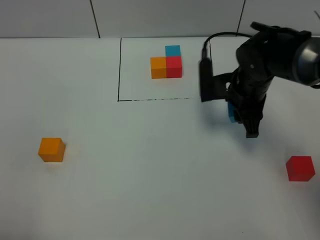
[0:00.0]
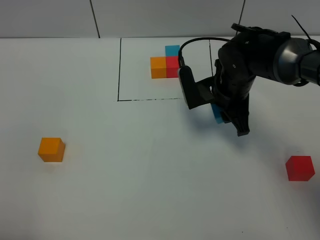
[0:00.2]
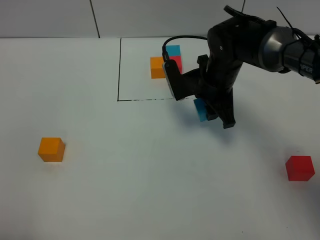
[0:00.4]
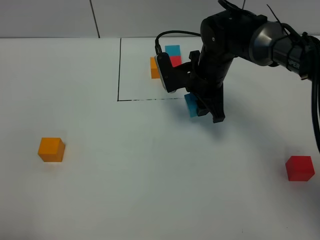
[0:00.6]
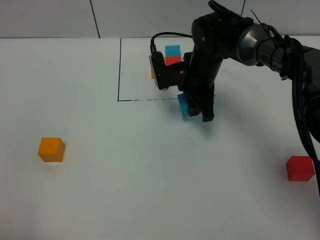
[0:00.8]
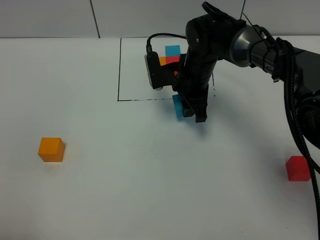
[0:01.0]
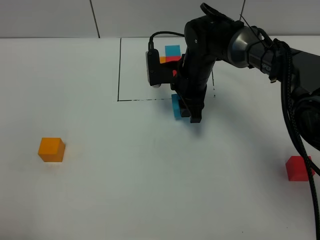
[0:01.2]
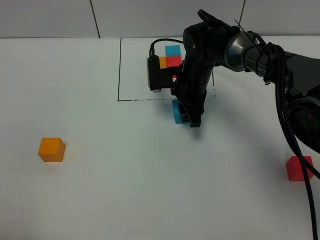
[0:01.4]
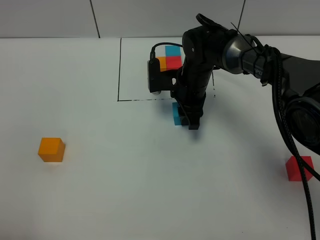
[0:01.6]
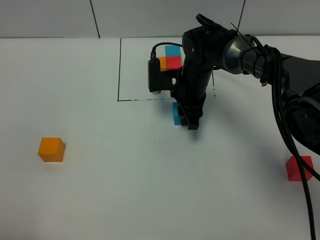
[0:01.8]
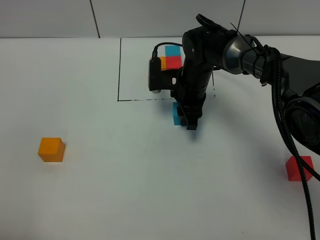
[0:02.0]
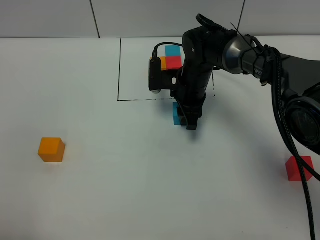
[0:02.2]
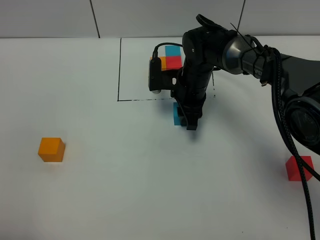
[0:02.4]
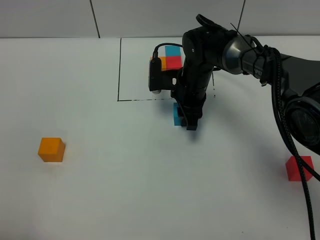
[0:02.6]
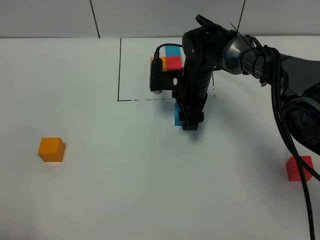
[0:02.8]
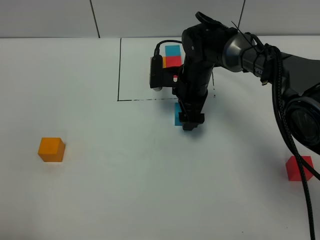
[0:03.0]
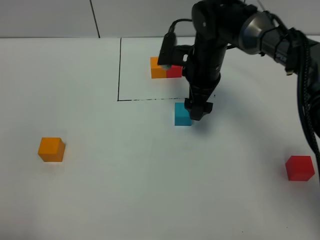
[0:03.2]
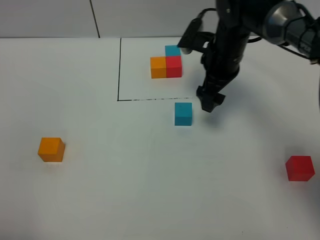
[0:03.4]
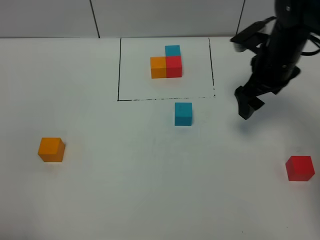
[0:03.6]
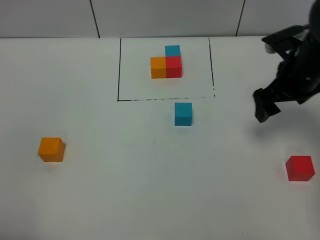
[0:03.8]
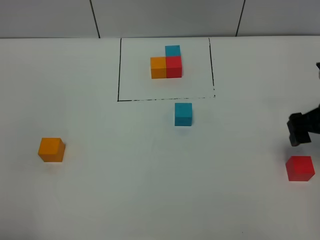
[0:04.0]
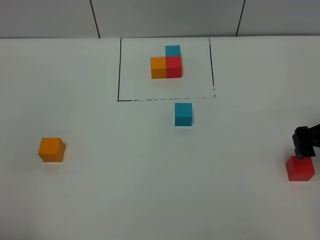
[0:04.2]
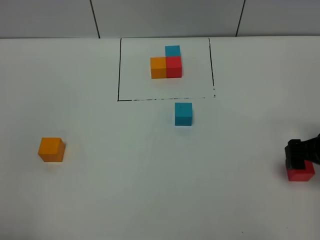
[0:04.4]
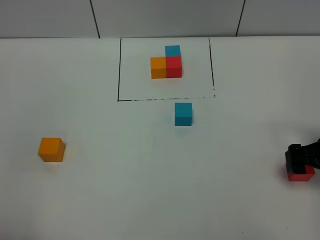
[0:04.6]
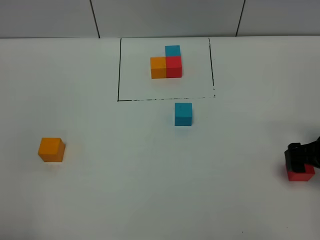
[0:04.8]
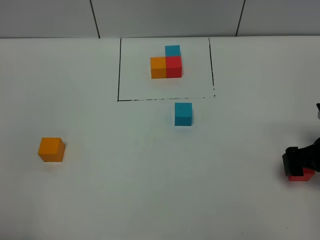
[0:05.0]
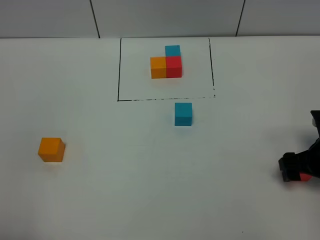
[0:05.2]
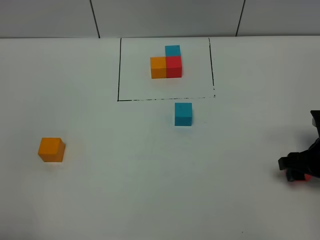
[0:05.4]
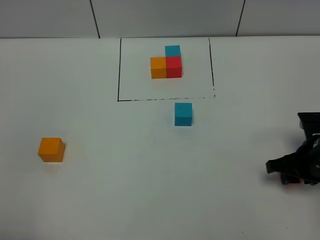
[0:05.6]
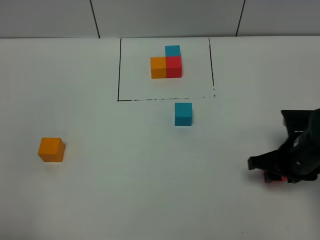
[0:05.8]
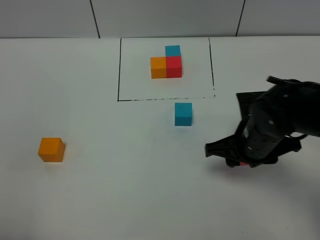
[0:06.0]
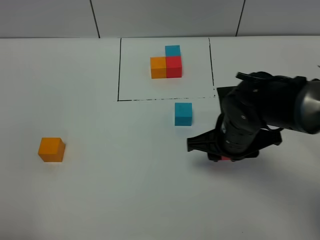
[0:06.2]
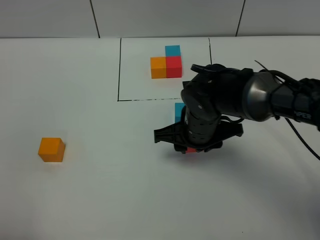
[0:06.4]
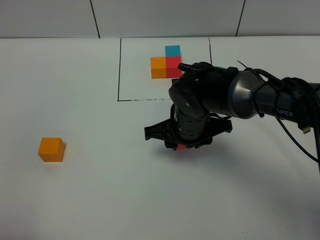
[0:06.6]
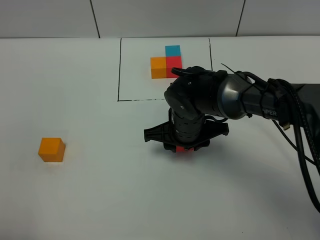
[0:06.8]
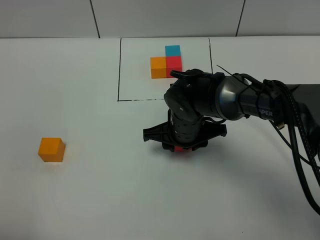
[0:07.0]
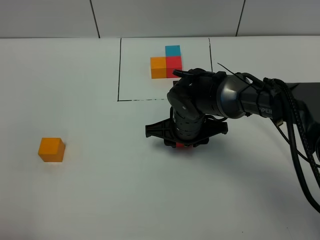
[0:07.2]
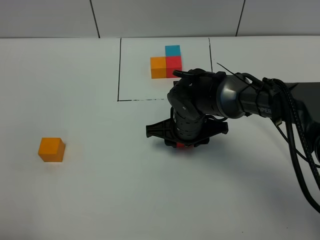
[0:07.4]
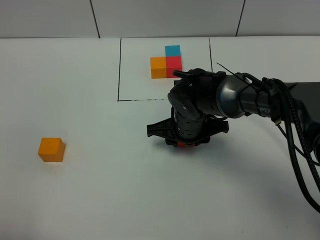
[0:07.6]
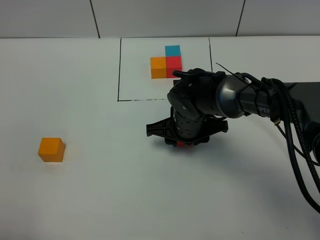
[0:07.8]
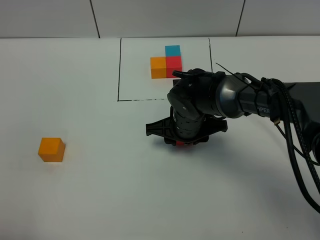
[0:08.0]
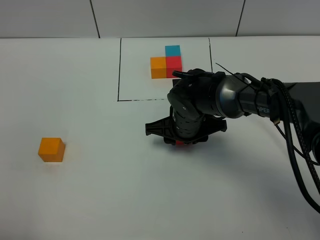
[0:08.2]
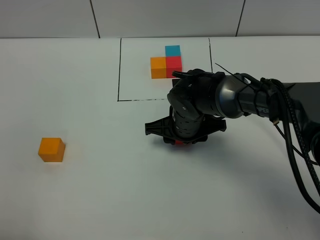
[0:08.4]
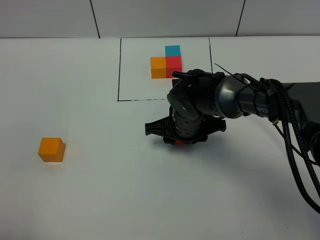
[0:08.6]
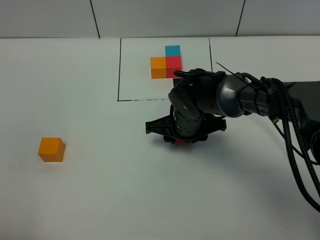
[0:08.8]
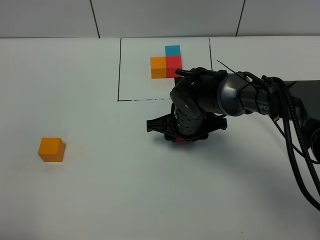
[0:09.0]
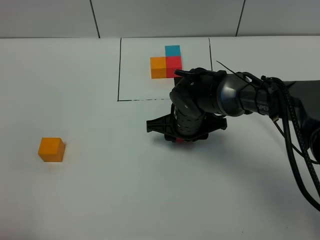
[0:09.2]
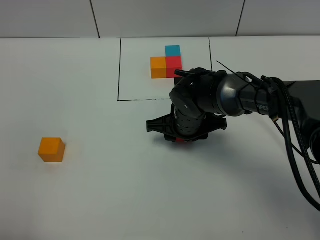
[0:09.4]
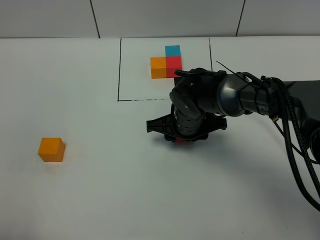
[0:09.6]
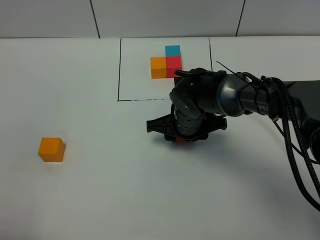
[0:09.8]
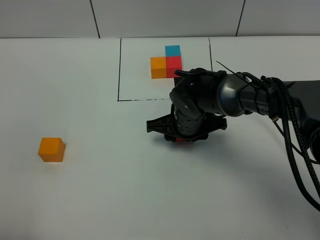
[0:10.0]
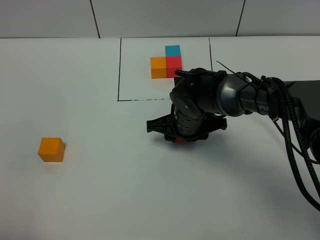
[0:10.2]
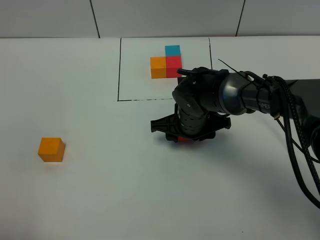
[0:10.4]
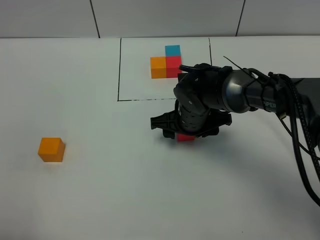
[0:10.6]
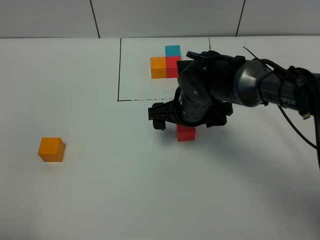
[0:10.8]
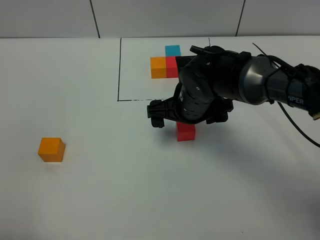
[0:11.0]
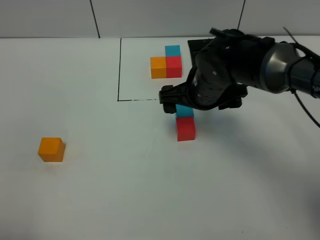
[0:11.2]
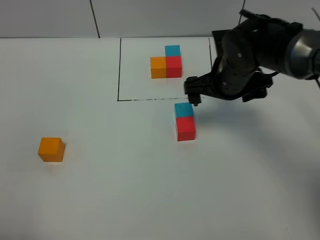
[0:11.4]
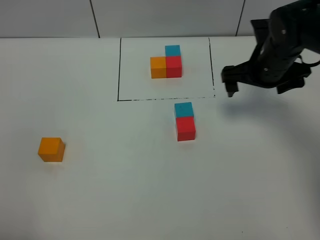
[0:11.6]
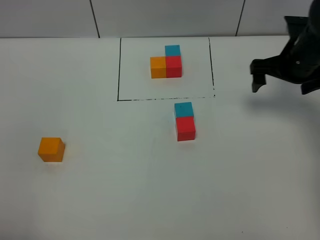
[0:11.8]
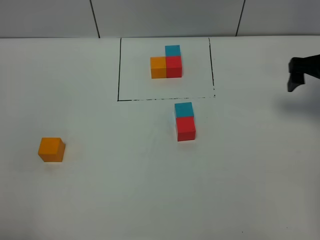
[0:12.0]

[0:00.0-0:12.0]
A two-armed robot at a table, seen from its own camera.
Task of the whole recording: According to the building block template in front, assemble the scattered blocks together.
Step, 0:00.0 to 0:02.8: Put the blue build block in the center of the table.
Step, 0:03.0 to 0:10.6: Put the red build block on the behind of the blue build block.
0:00.0 to 0:01.6: The right gripper goes roughly 10 cm to the left and forward.
0:01.6 to 0:03.0: The right gripper opens its fingers.
0:03.0 to 0:04.4: The right gripper shifts approximately 30 cm to the right and backward.
0:04.4 to 0:06.0: The right gripper moves to the left, about 15 cm, and closes up.
0:06.0 to 0:07.6: The right gripper is displaced to the left and forward by roughly 10 cm.
0:07.6 to 0:09.0: Neither gripper changes place.
0:09.0 to 0:10.4: Neither gripper changes place.
0:10.4 to 0:12.0: The right gripper is displaced to the right and upward by roughly 30 cm, and opens up.

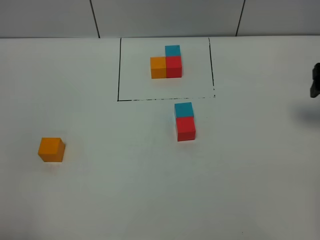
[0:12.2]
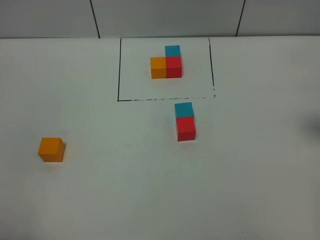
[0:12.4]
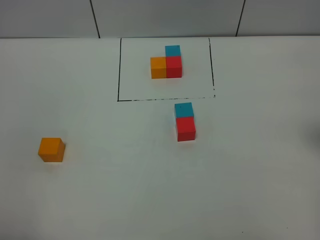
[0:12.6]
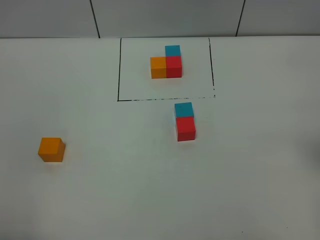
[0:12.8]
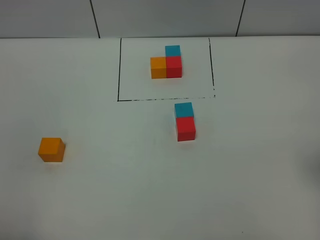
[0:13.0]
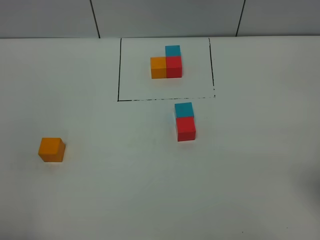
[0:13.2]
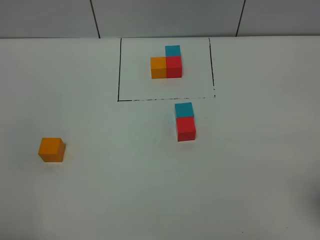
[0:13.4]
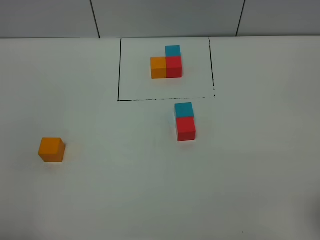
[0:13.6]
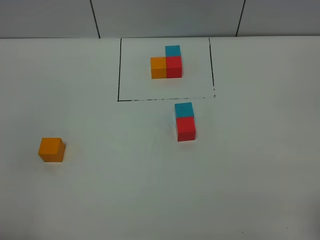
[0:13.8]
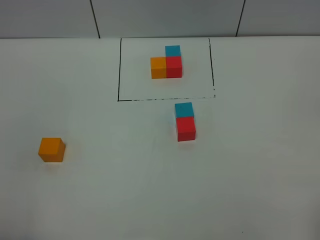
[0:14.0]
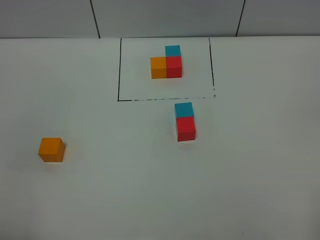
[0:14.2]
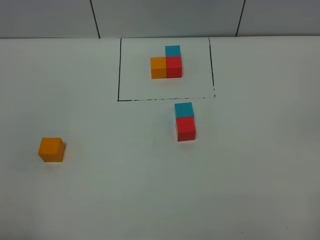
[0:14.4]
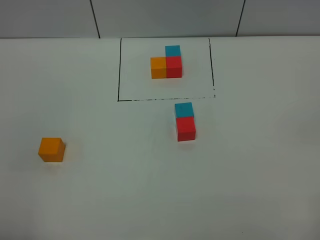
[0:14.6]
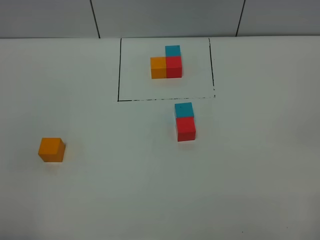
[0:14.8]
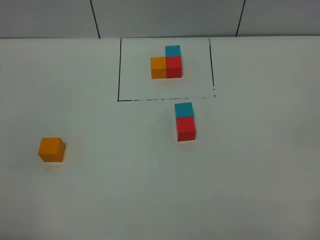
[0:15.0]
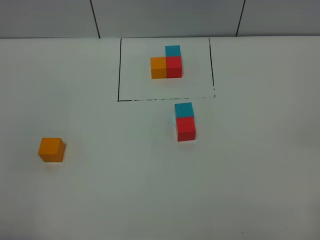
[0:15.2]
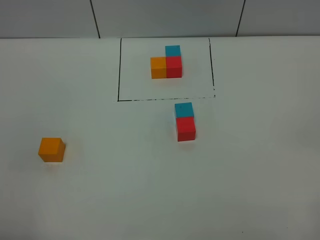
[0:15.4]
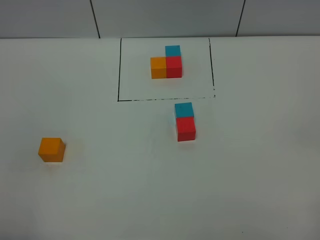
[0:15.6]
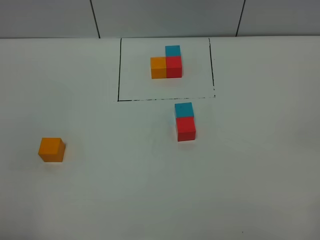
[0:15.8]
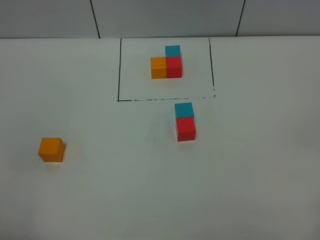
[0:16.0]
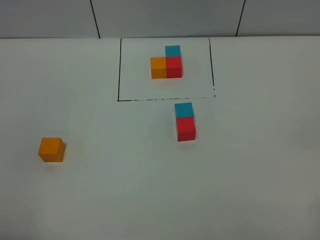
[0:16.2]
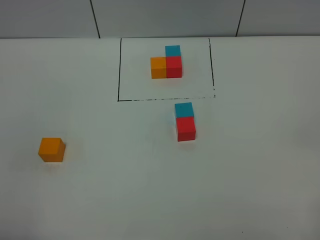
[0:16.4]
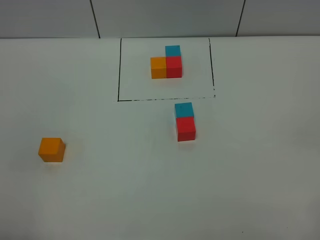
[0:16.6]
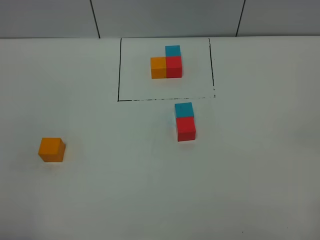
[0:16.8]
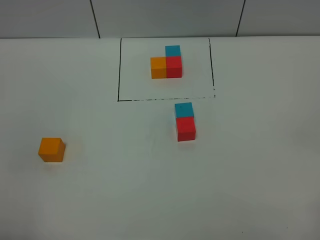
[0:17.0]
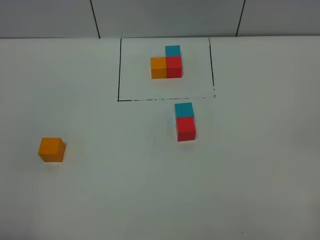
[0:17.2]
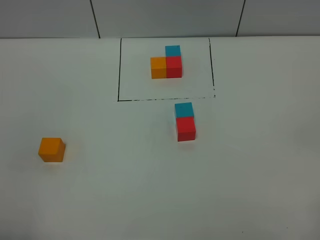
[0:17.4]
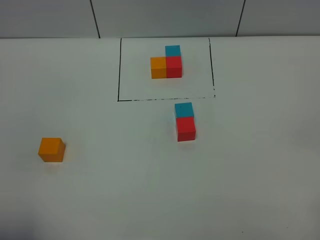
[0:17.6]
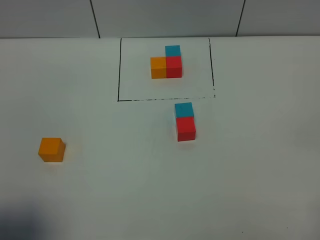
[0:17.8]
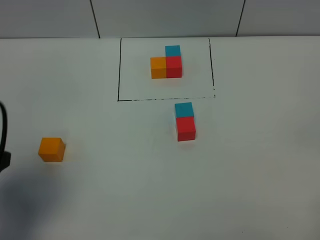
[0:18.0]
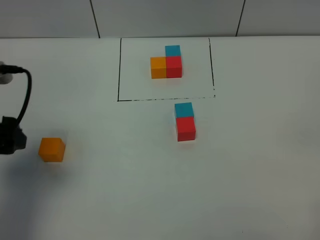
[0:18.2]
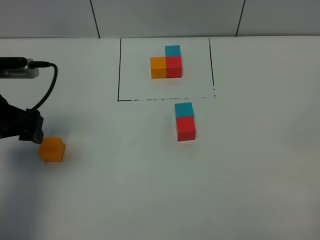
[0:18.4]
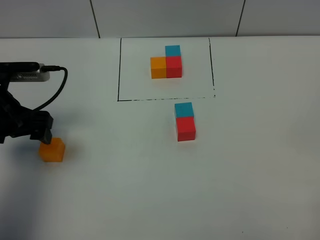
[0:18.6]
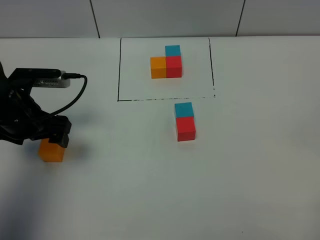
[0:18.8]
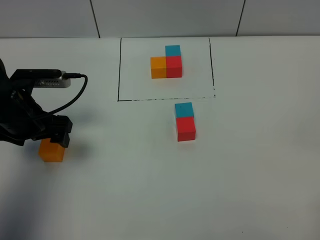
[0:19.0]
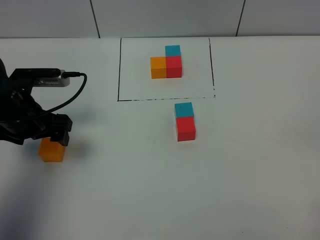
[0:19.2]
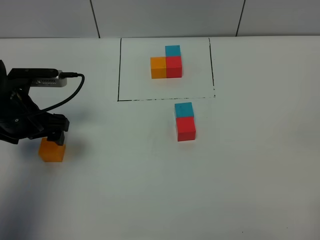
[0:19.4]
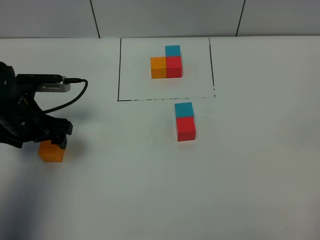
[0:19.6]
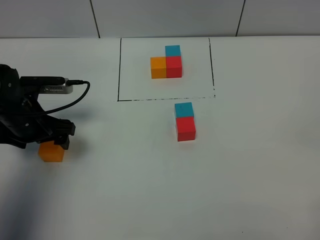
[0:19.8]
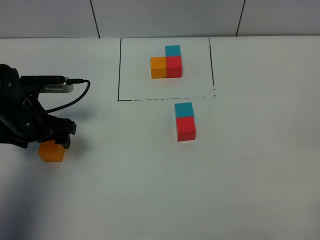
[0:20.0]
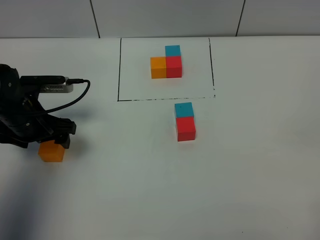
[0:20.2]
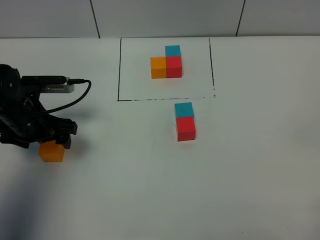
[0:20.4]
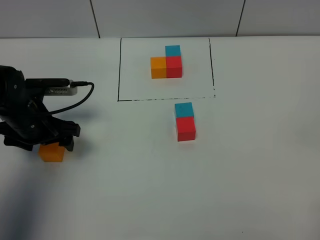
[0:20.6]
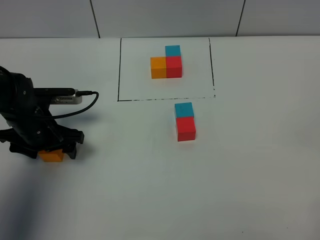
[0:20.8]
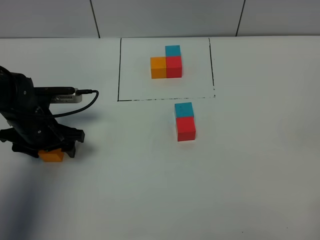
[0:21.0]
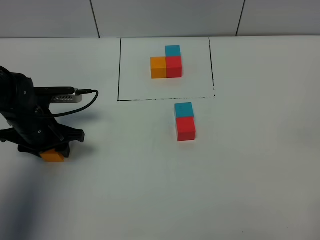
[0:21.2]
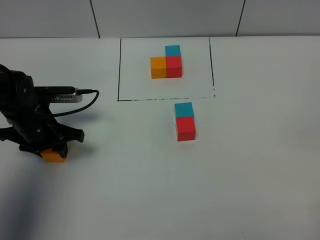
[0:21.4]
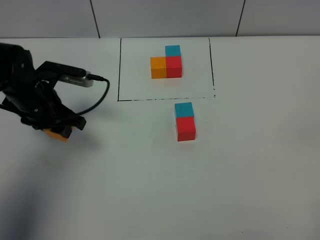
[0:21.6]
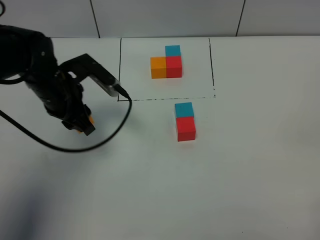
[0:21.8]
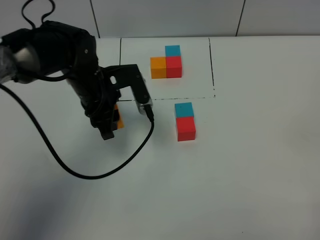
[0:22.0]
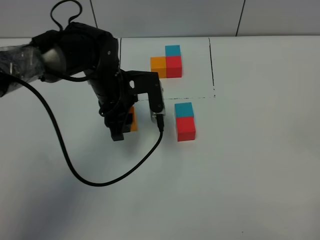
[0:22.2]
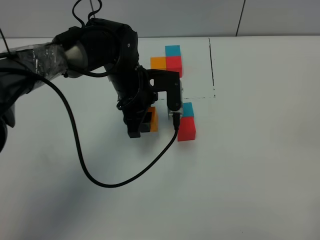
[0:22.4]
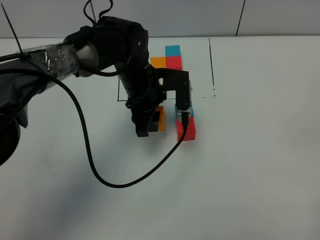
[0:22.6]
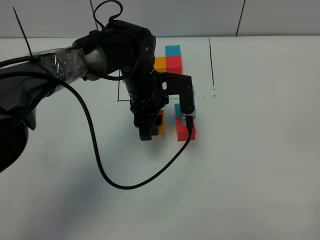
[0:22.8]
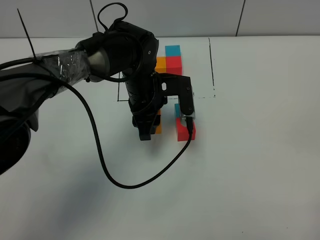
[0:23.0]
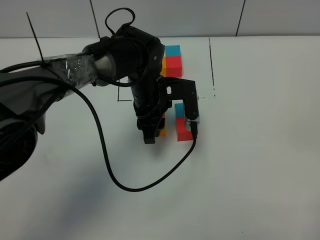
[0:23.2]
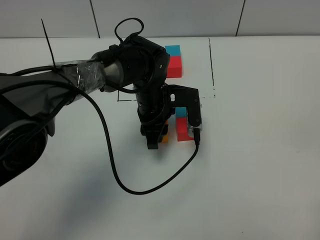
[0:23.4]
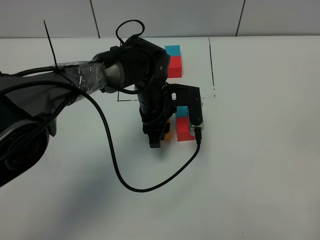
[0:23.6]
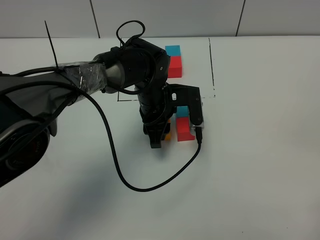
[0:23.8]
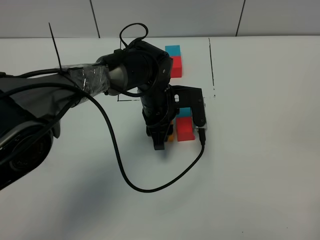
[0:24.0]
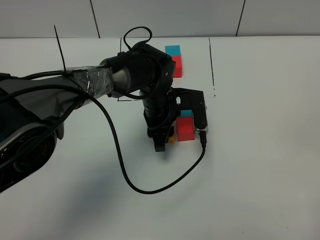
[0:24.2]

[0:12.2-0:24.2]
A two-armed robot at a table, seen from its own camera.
Task of the whole recording: According to the building block template in front, assemble the scattered blocks together.
0:12.2 to 0:13.8: The right gripper goes approximately 25 cm backward.
0:15.2 to 0:16.6: Both grippers stay about where they are.
0:16.6 to 0:18.2: The left gripper is displaced forward by roughly 20 cm, and opens up.
0:18.2 to 0:19.8: The left gripper is displaced downward and forward by about 15 cm.
0:19.8 to 0:21.2: The left gripper closes.
0:21.2 to 0:22.6: The left gripper shifts some 20 cm to the right.
0:22.6 to 0:24.2: The left gripper moves roughly 5 cm.
